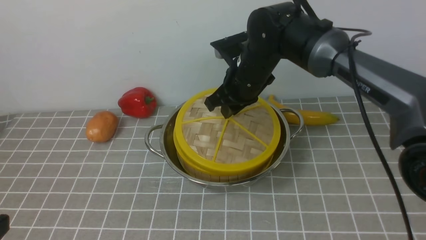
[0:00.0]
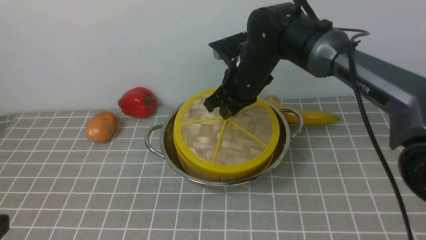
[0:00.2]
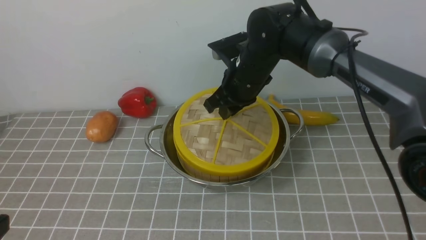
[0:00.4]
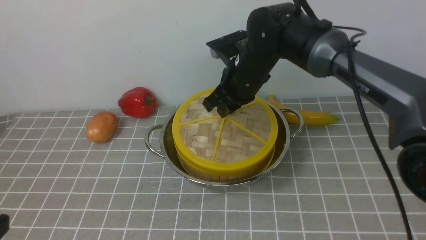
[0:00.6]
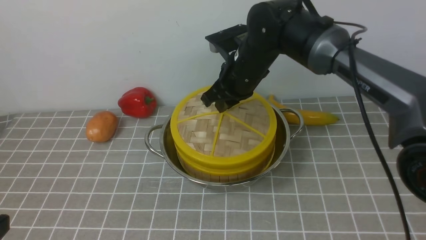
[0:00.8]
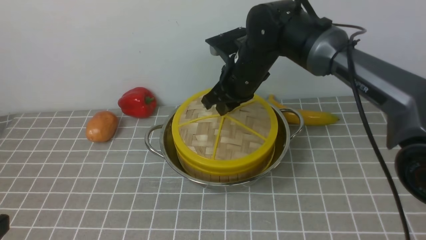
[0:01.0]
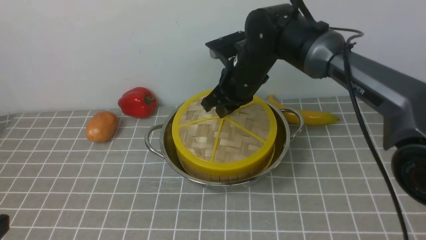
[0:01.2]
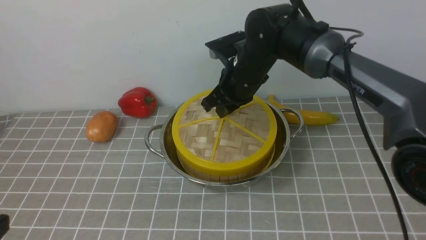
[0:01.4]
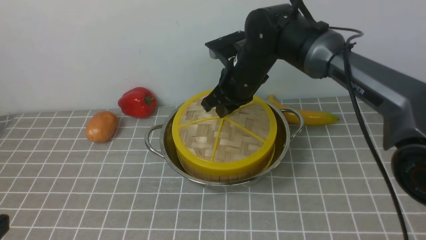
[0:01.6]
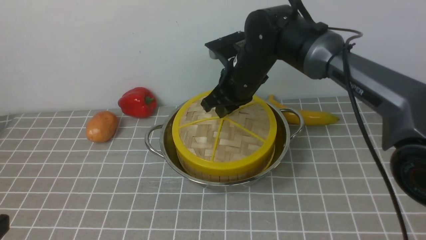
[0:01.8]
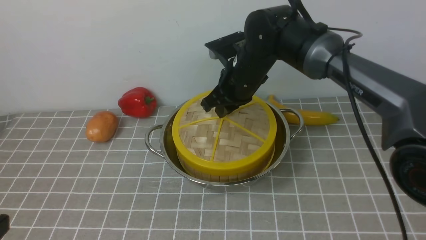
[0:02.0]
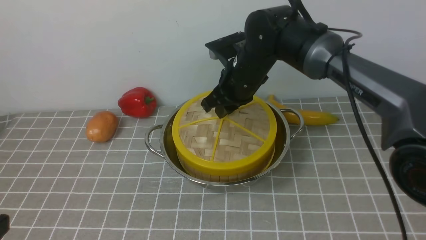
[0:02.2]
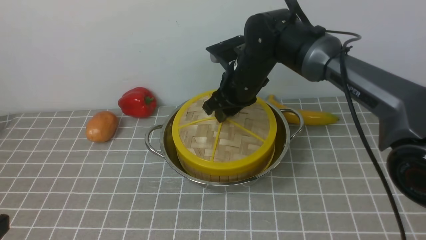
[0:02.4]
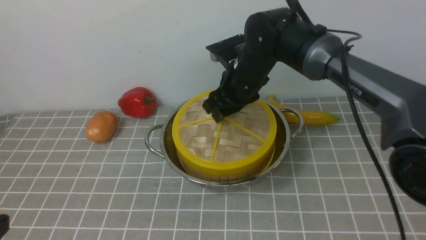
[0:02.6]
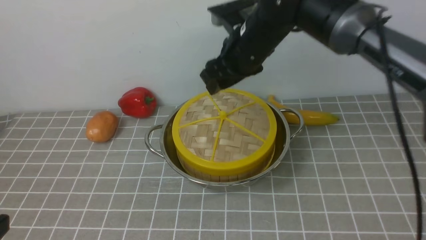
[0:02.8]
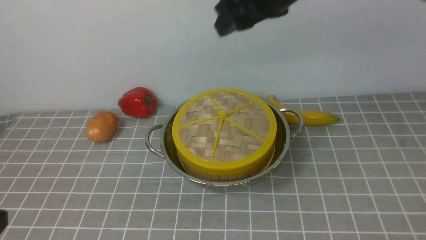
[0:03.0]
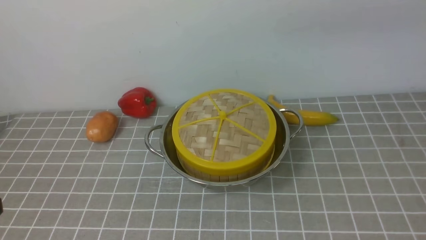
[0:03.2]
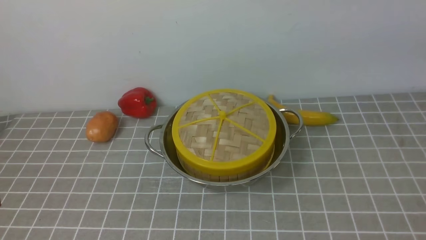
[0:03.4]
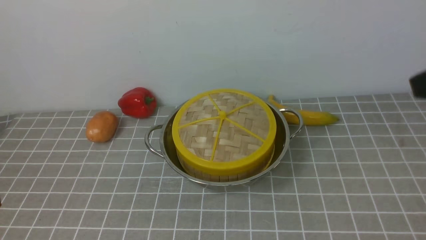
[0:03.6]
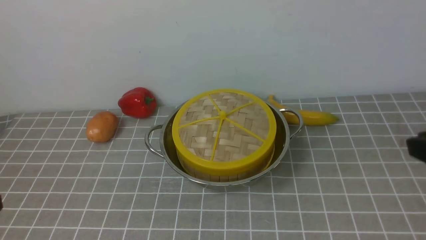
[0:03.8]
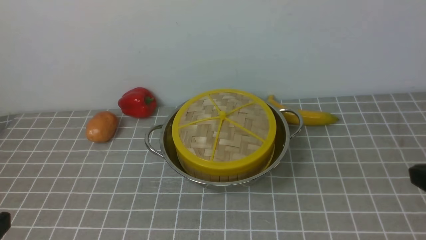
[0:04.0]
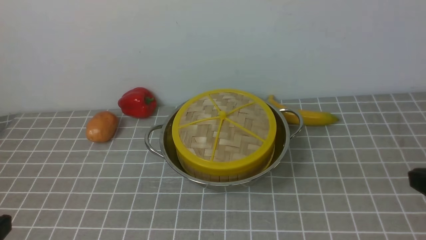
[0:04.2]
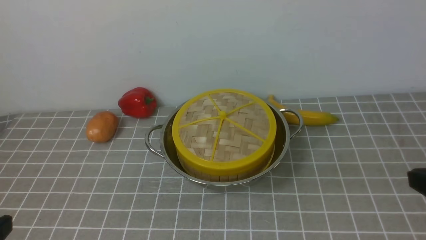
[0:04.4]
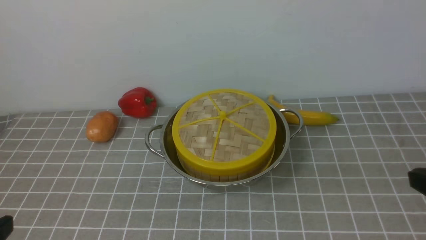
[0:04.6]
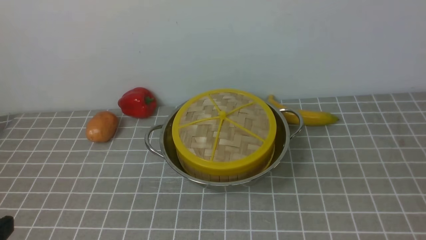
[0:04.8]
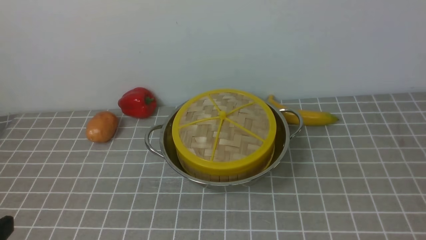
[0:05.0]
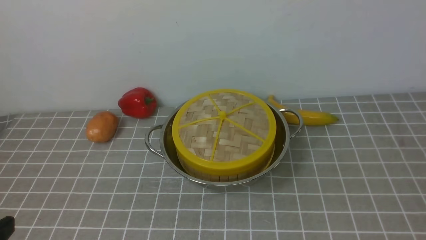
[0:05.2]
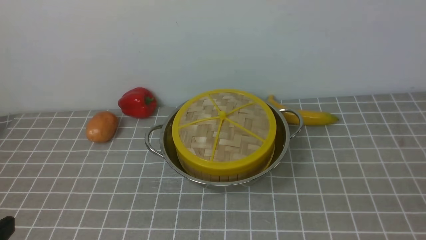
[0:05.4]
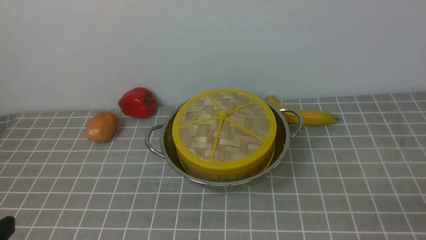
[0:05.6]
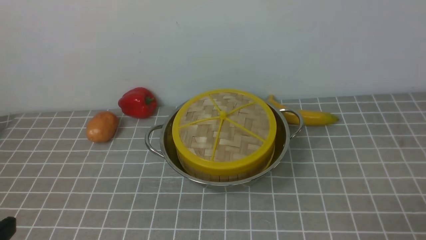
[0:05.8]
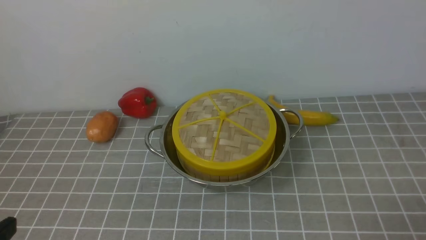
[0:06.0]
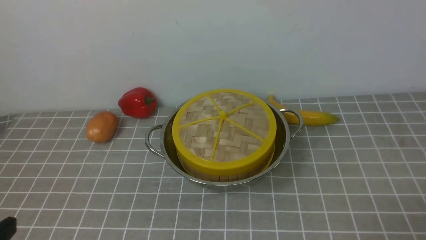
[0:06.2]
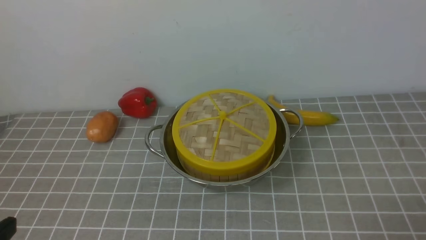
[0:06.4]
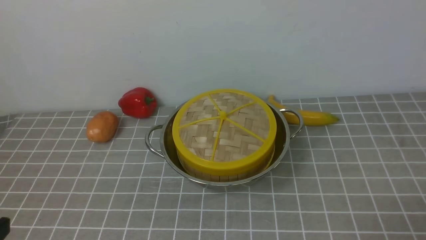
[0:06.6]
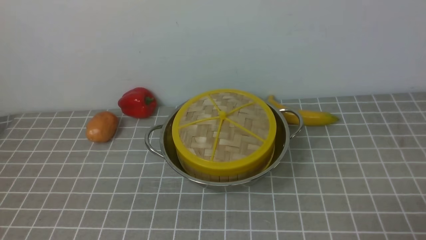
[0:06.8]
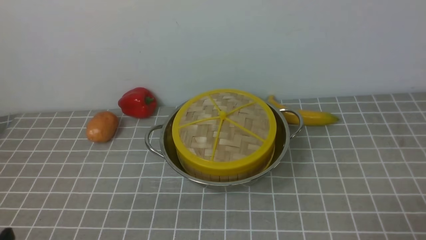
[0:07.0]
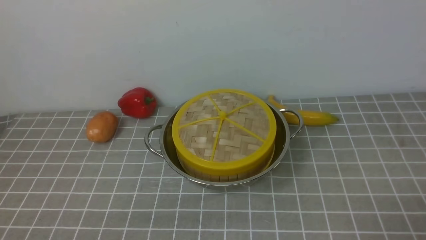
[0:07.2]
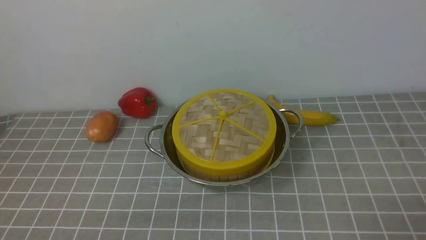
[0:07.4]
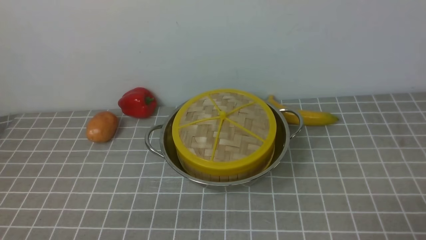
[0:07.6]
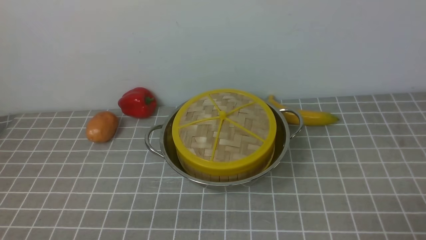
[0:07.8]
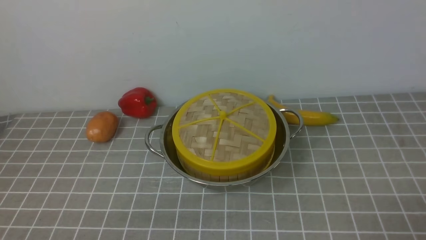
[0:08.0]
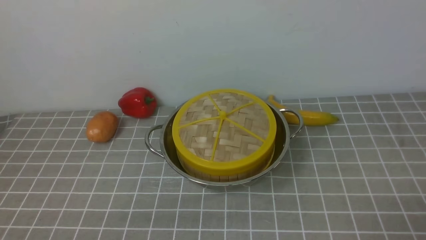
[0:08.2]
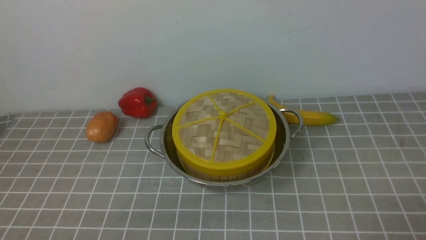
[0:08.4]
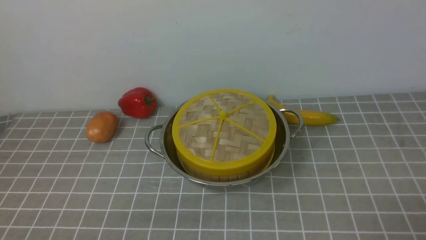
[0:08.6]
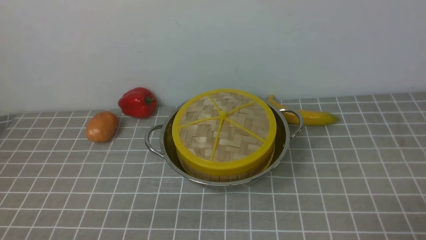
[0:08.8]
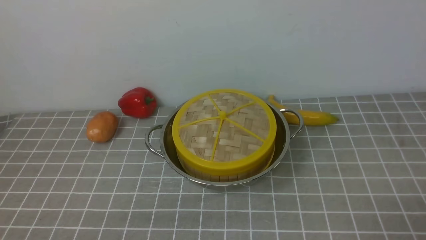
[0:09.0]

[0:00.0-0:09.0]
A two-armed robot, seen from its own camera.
Task of the whole recording: place the steamer in the pot on the grey tablecloth, and put the lid on the steamer.
Step, 0.0 to 2.6 s: use the right arm to place the steamer lid on the steamer.
0.0 to 1.6 s: Both grippers stay put.
1.6 to 3.0 s: The right gripper moves upward, about 20 cm, and opens its fingers.
3.0 to 4.4 s: The right gripper travels backward, to the right and downward by roughly 30 cm, and closes its fingers.
7.6 to 9.0 s: Neither gripper changes place.

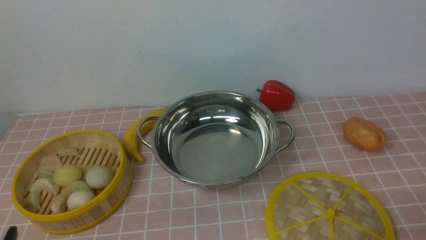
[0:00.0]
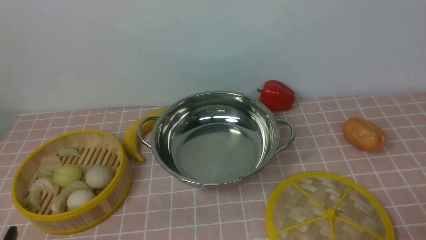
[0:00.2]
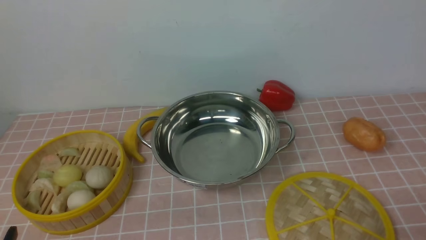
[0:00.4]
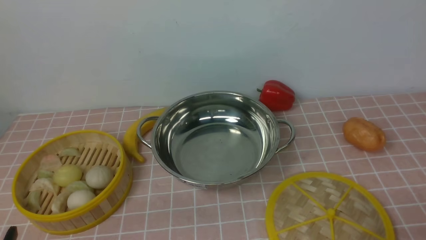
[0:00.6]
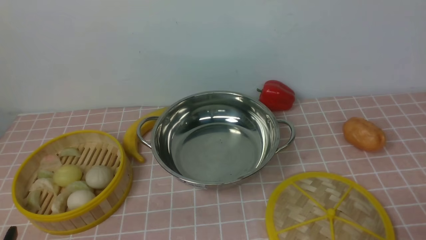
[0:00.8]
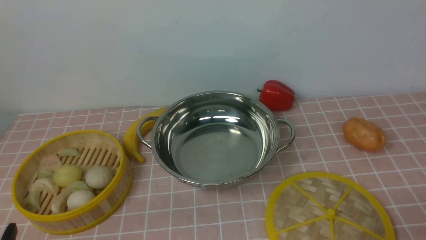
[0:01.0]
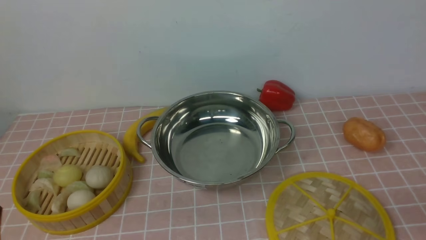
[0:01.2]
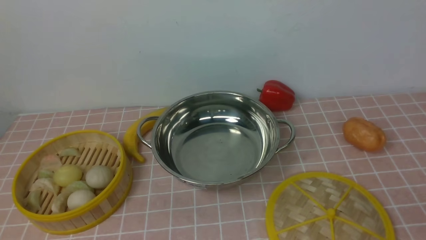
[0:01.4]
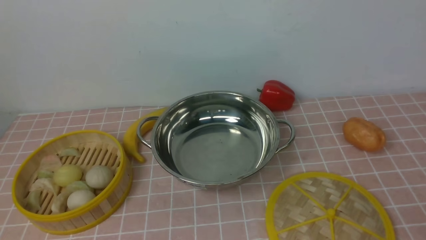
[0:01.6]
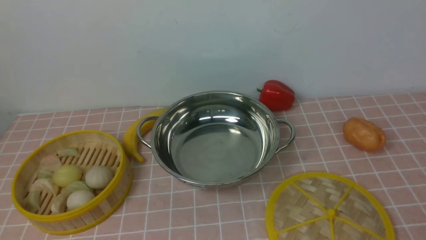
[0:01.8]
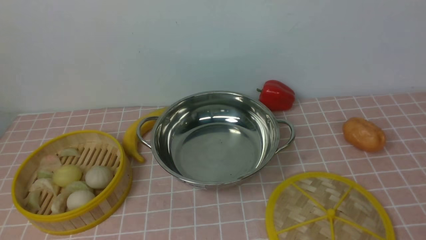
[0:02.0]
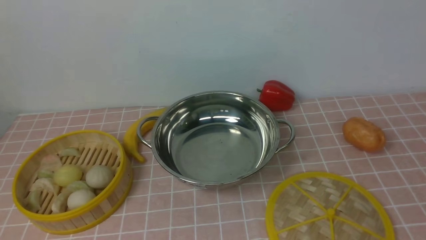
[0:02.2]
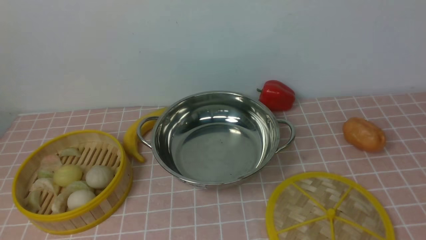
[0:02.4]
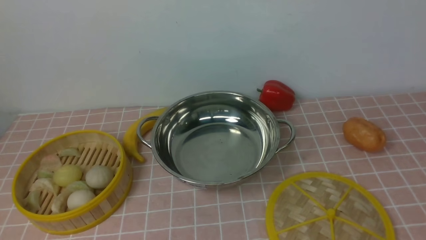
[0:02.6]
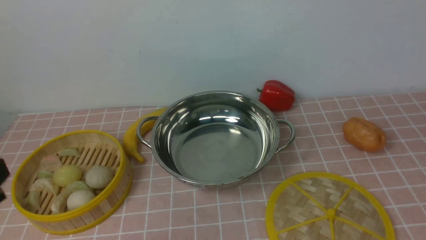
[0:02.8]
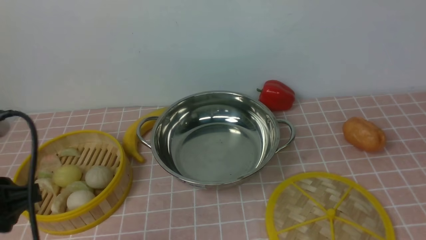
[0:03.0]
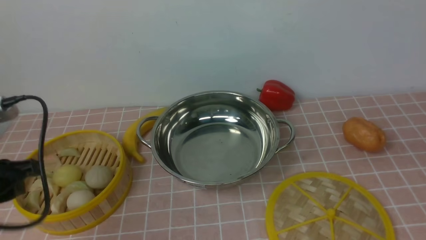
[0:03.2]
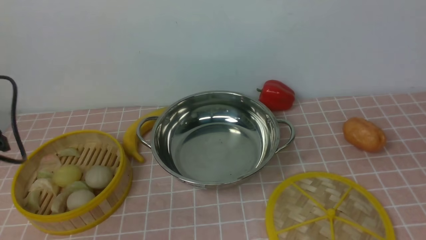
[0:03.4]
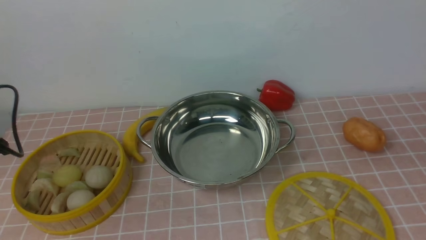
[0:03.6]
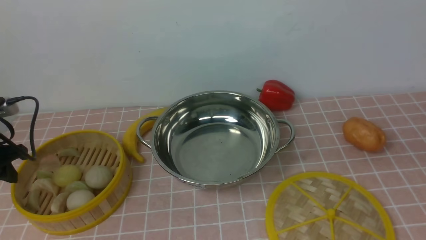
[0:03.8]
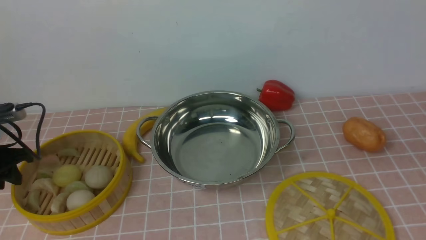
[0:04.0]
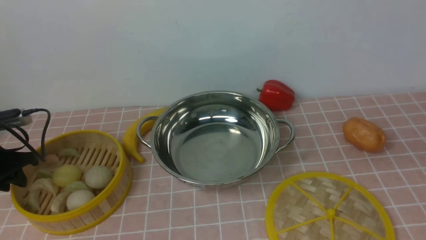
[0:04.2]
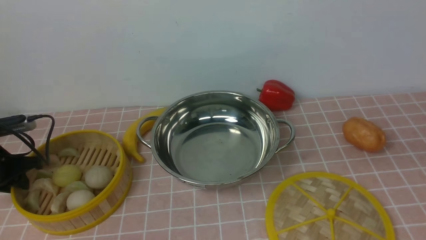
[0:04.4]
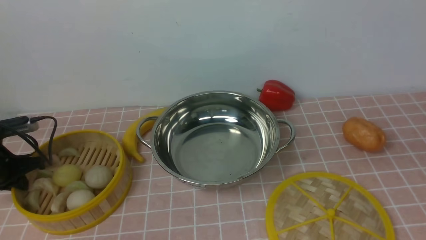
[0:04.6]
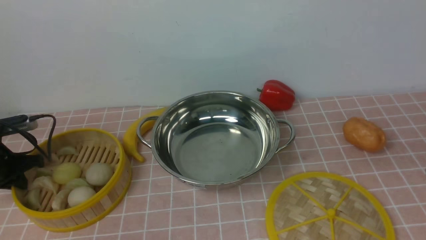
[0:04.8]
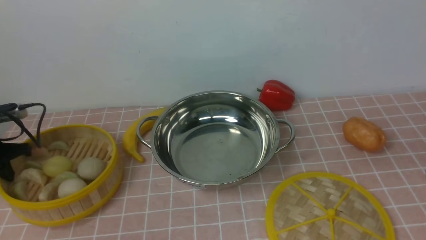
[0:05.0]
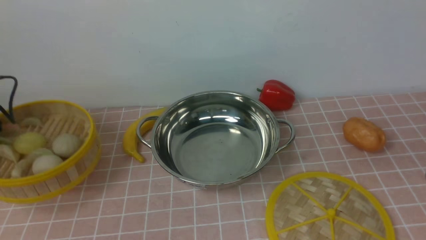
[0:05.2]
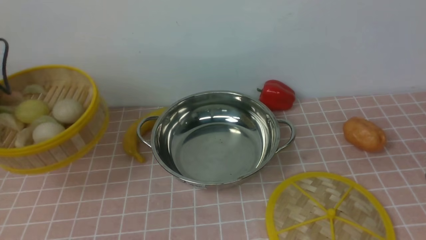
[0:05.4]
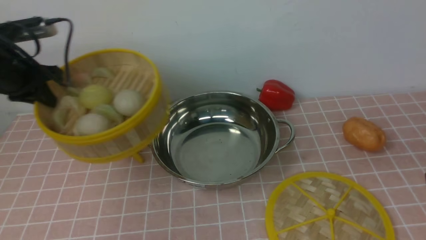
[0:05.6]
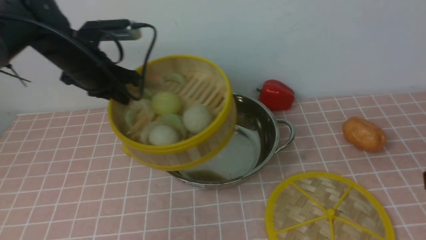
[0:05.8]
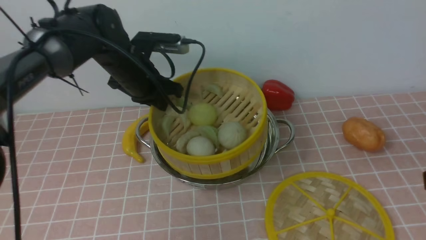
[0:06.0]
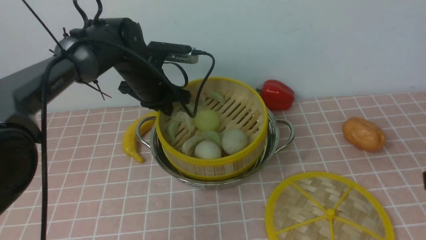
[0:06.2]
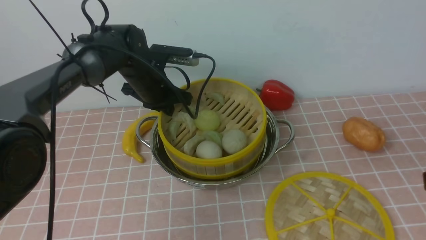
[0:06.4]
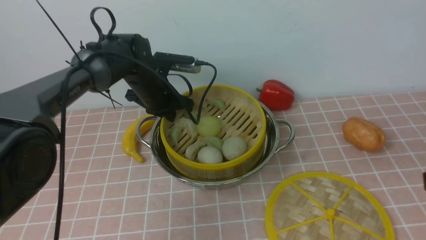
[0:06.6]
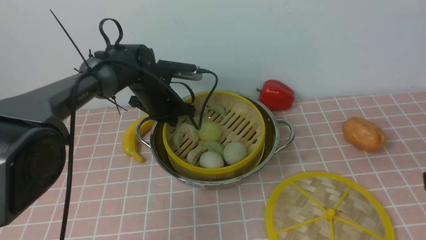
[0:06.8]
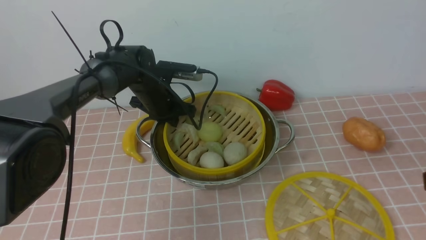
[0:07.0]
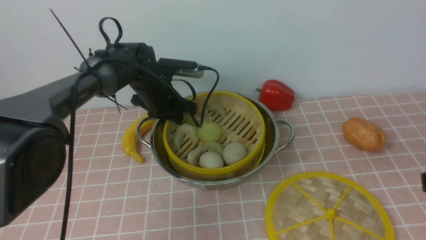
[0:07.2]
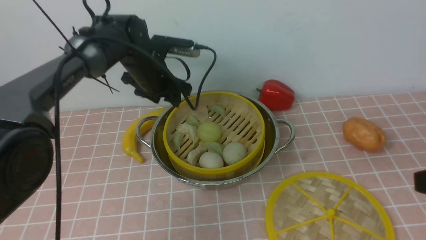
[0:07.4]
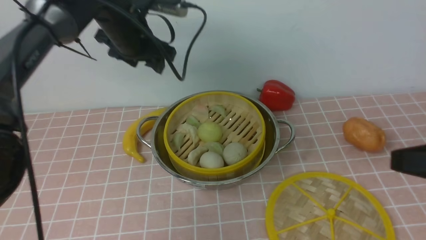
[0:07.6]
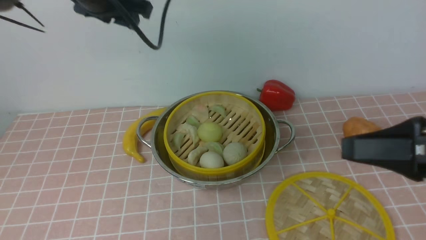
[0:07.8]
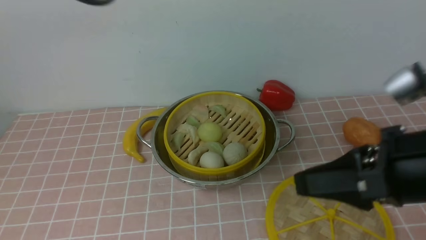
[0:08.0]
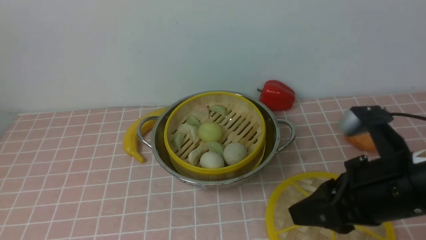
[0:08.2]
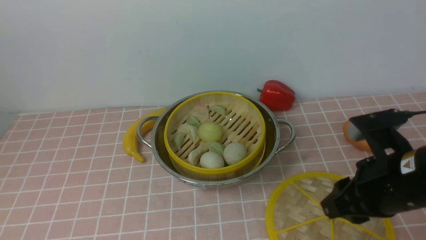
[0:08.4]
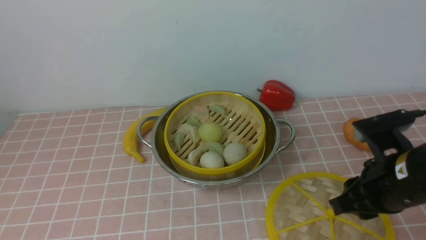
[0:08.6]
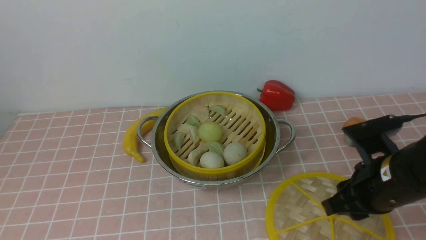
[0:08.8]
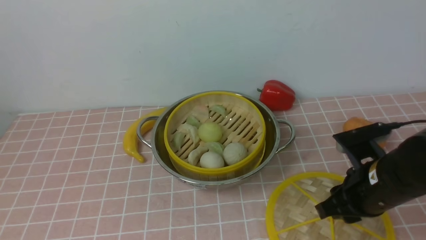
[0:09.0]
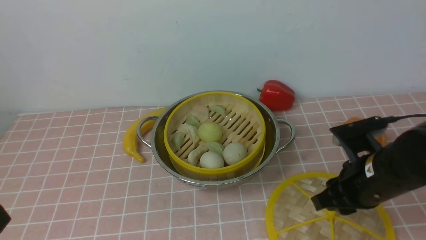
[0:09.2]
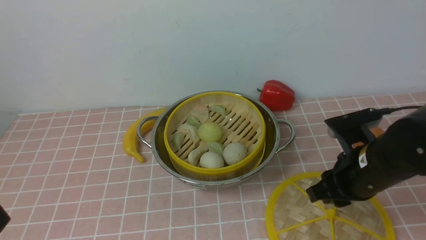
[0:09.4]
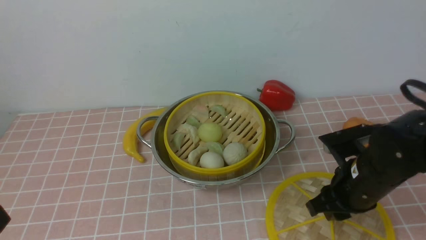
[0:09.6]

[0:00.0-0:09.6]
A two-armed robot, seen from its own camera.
Task of the whole recording: place the steamer in the pot on the pink tablecloth, and put the lid on the steamer.
Step, 0.0 to 5.0 s: use the left arm to lift the steamer closest to it.
Step, 5.2 to 7.2 s: use the left arm to put the steamer into the iron steamer pot in the middle.
1.6 to 3.2 s: The left gripper travels forward by about 15 cm.
3.2 to 4.8 s: The left gripper heads forward, downward and to the left, covering some 25 cm, and closes.
4.8 to 6.4 s: The left gripper heads to the right and forward, covering about 30 cm.
6.4 to 8.0 s: The right gripper heads to the left, covering about 10 cm. Meanwhile the left gripper goes about 35 cm upward and backward, and opens its fingers.
8.0 to 9.6 s: The left gripper is displaced backward and downward by roughly 35 cm, and closes. The right gripper travels downward and forward by some 15 cm.
